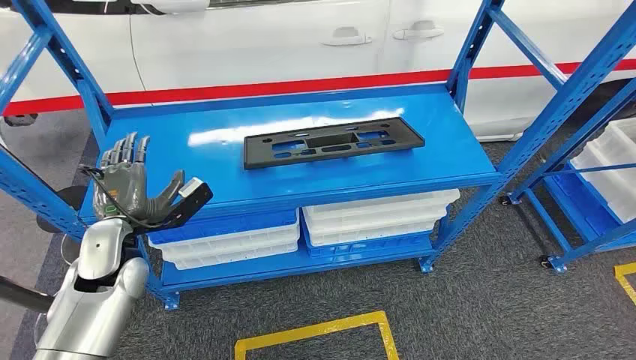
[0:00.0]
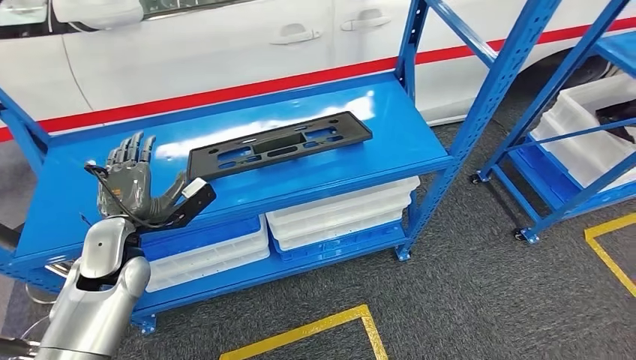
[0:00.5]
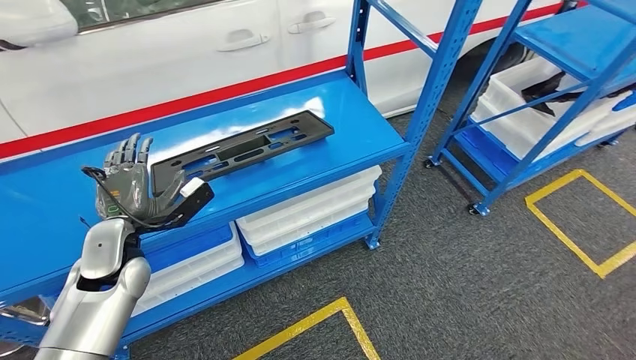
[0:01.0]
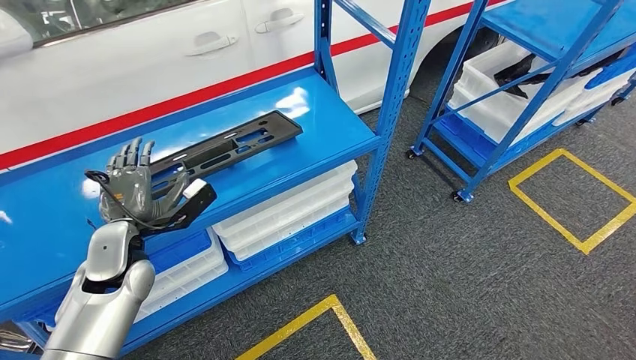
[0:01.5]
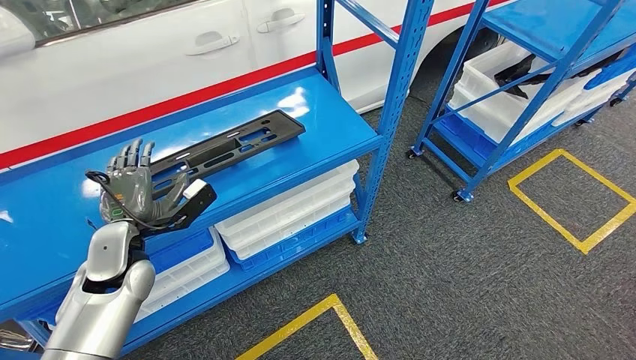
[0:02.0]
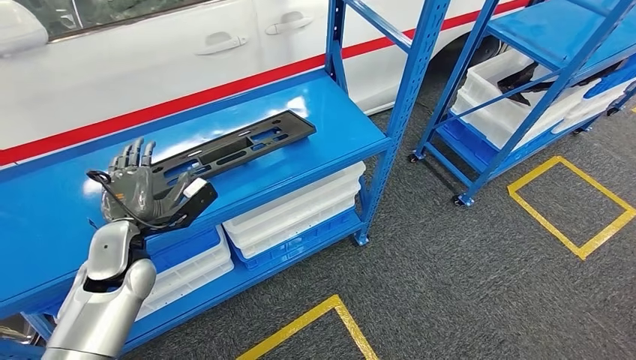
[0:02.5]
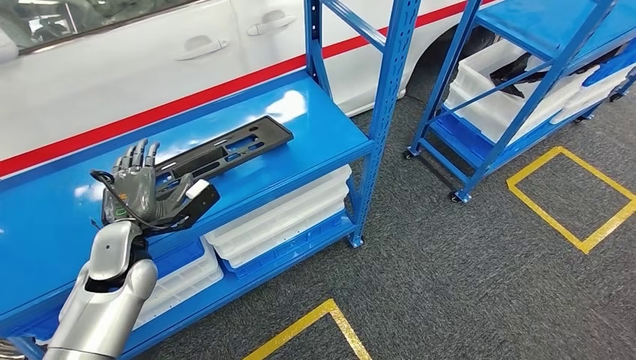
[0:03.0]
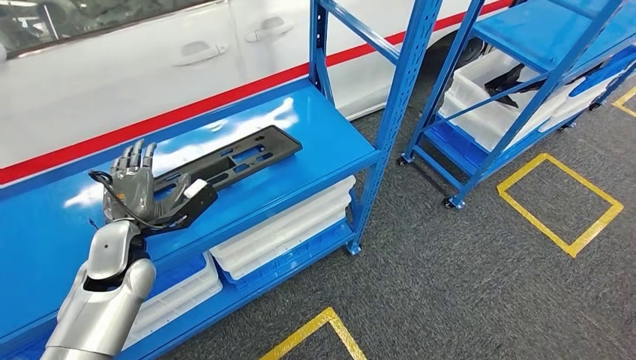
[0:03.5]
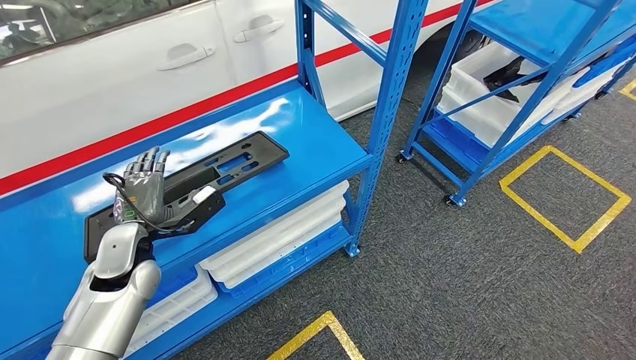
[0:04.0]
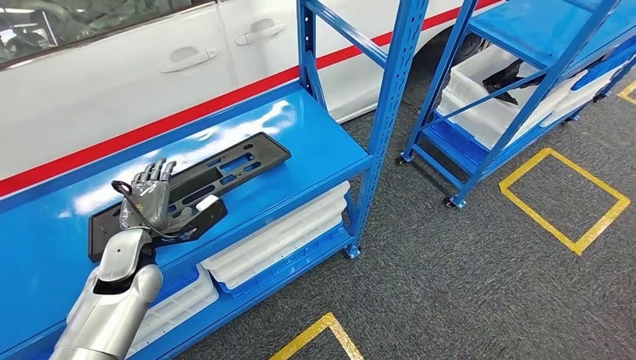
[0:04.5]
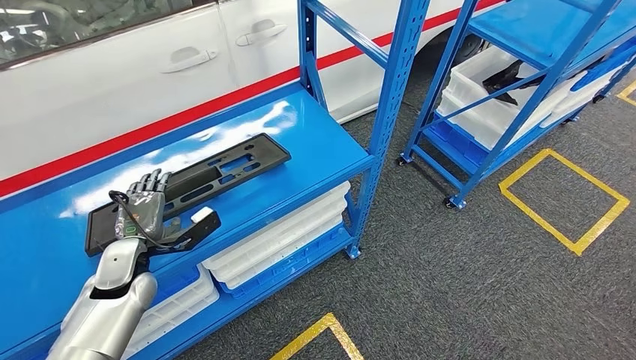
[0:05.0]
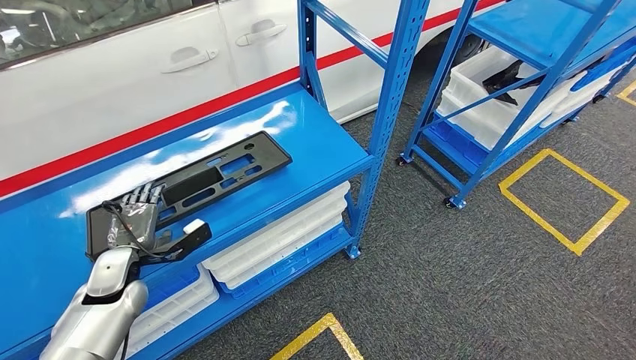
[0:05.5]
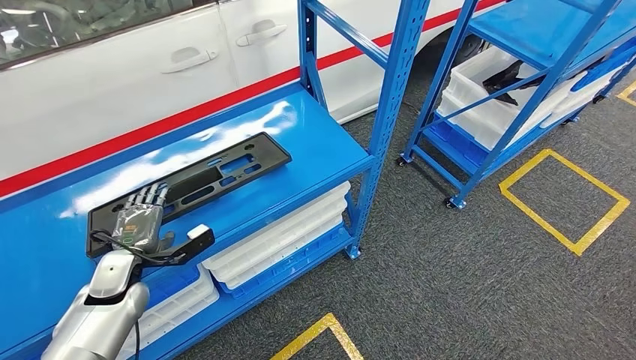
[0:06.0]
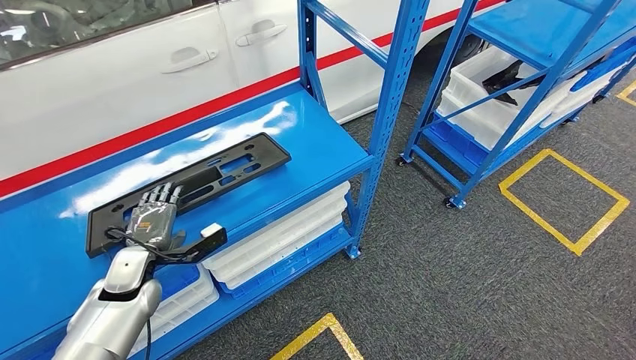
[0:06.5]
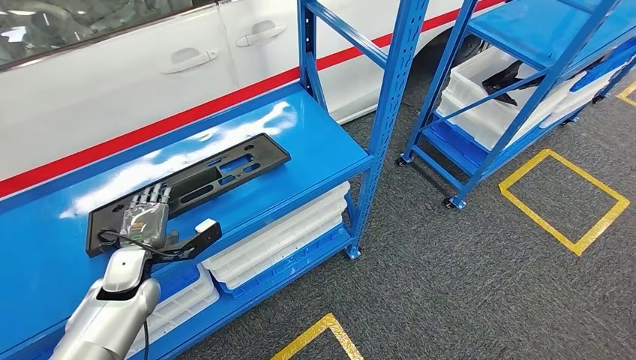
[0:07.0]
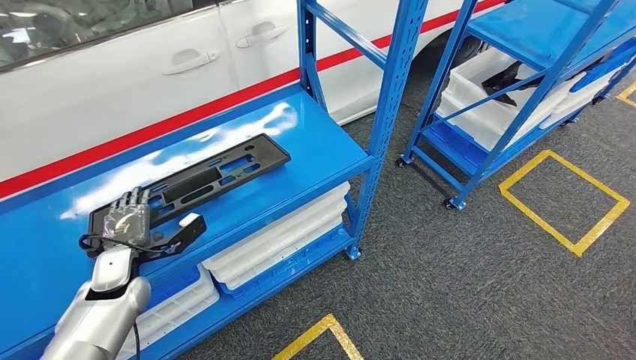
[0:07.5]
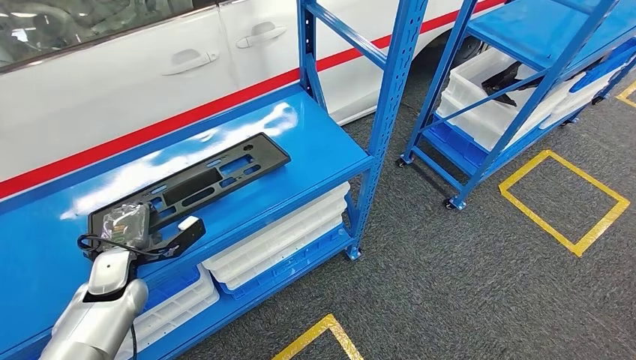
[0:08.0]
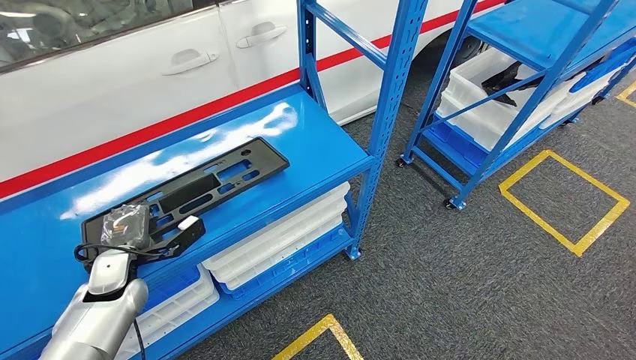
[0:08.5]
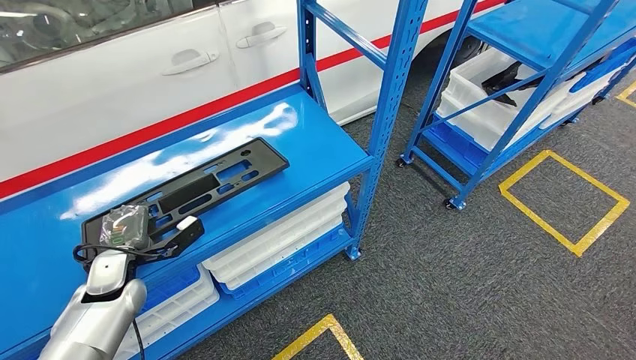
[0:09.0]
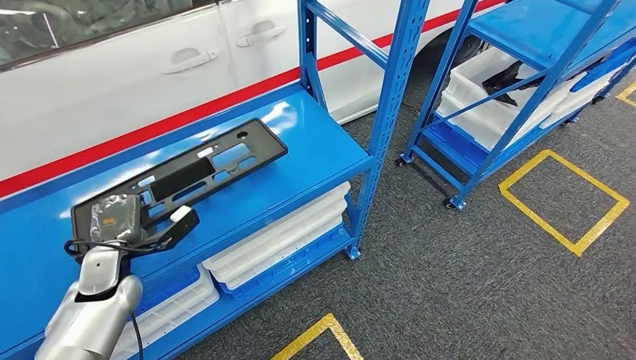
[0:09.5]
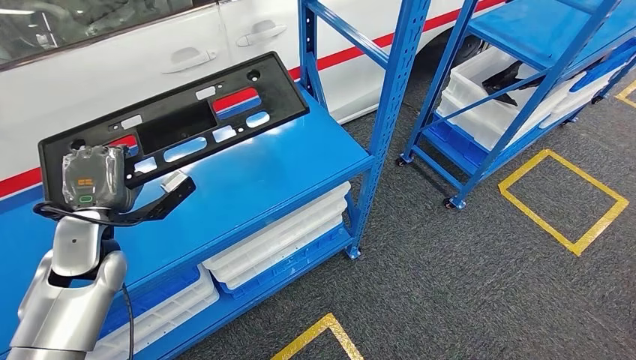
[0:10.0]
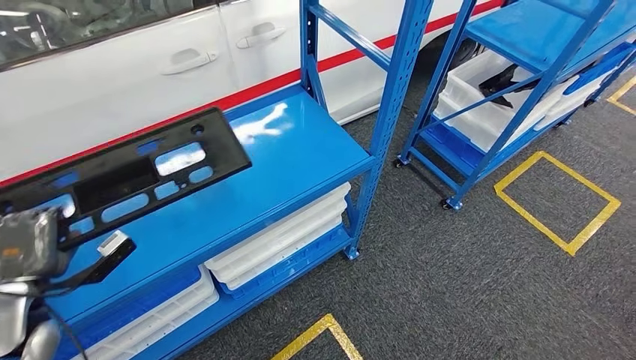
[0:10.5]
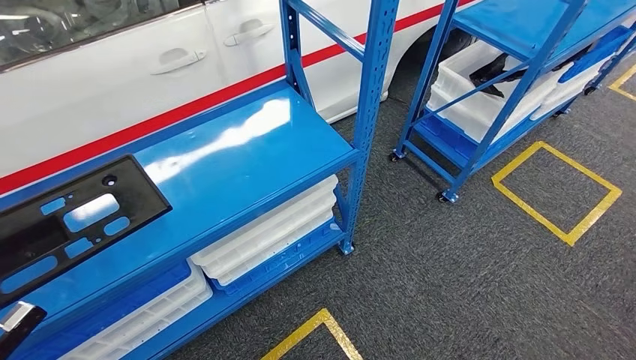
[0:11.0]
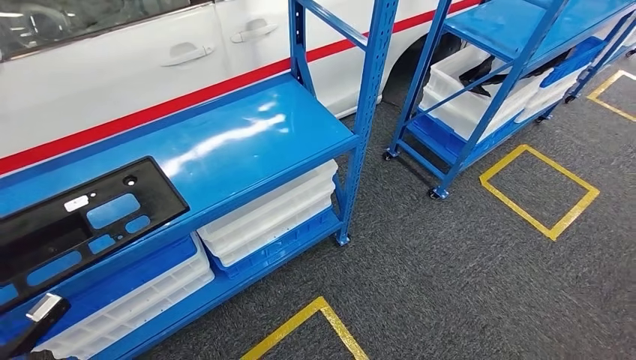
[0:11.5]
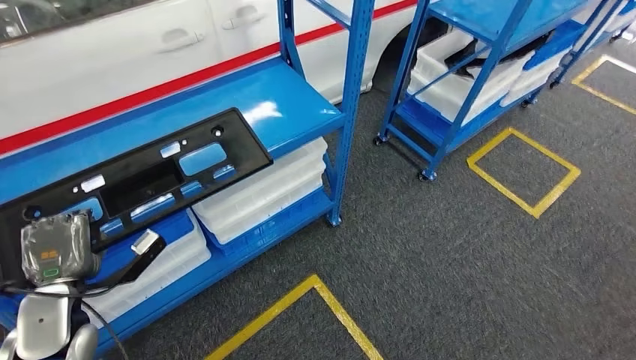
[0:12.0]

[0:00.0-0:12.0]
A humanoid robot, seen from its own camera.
0:04.0 to 0:06.0: The left hand travels downward and to the left by some 10 cm.
0:06.0 to 0:08.0: There are only small adjustments of the hands.

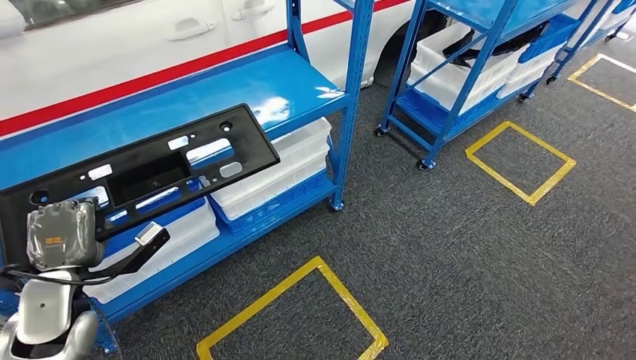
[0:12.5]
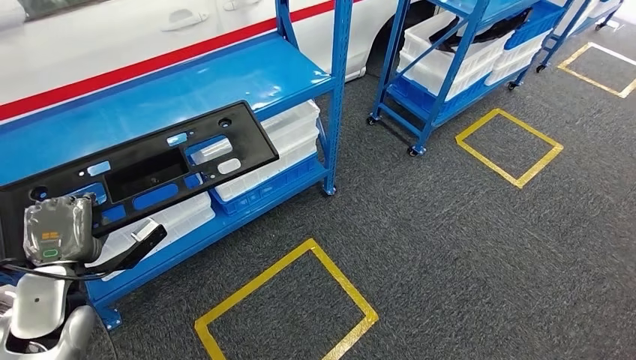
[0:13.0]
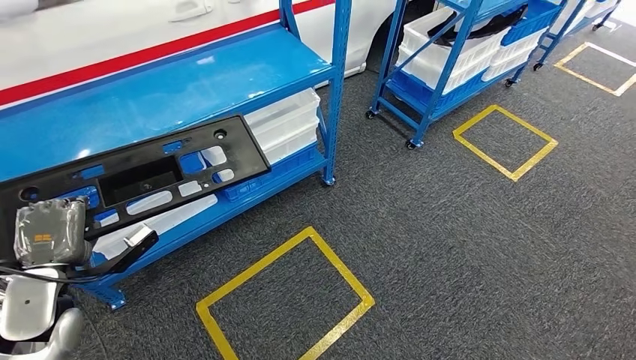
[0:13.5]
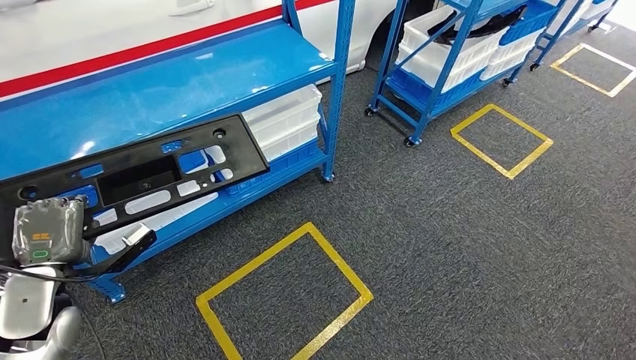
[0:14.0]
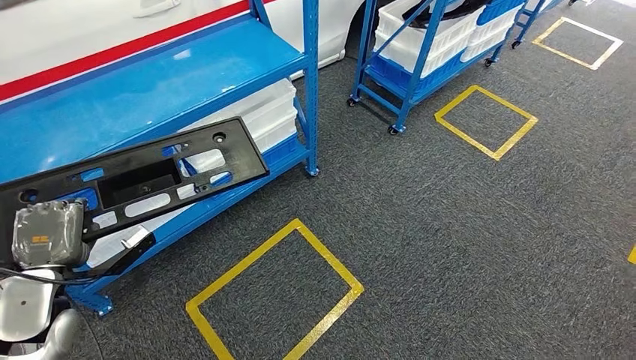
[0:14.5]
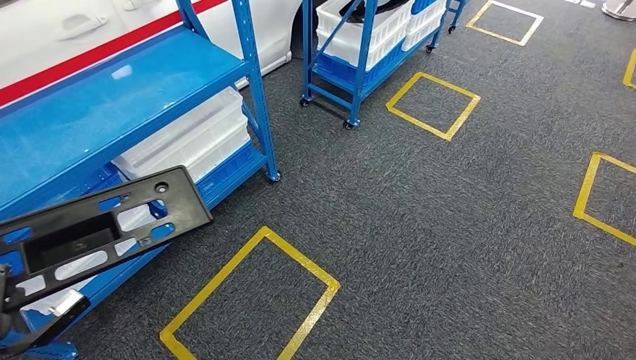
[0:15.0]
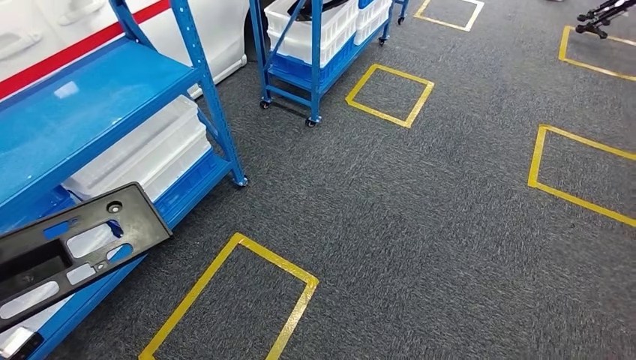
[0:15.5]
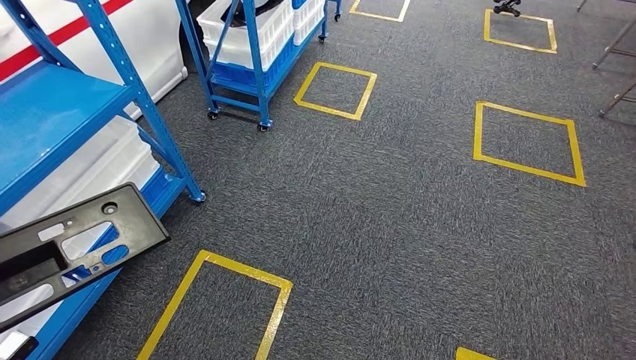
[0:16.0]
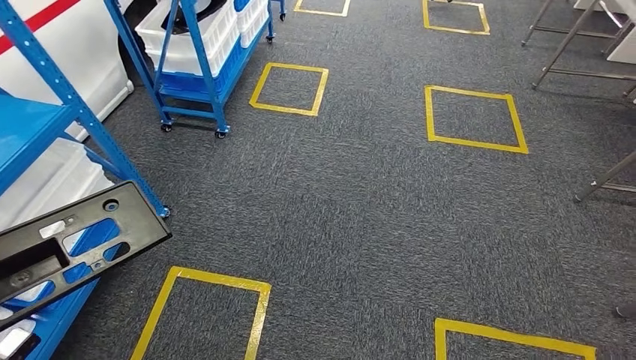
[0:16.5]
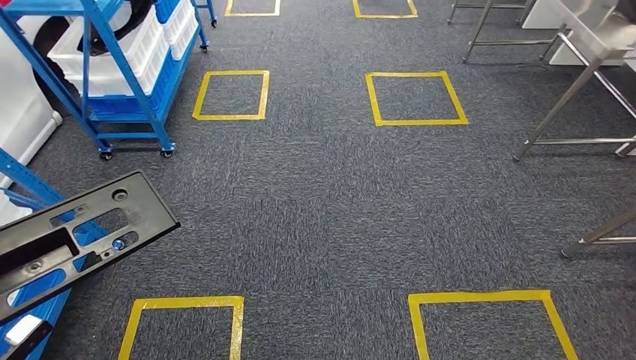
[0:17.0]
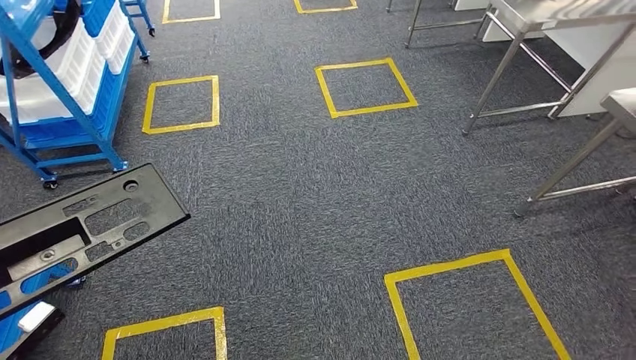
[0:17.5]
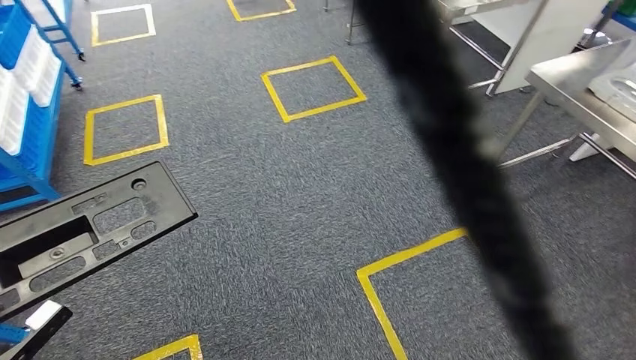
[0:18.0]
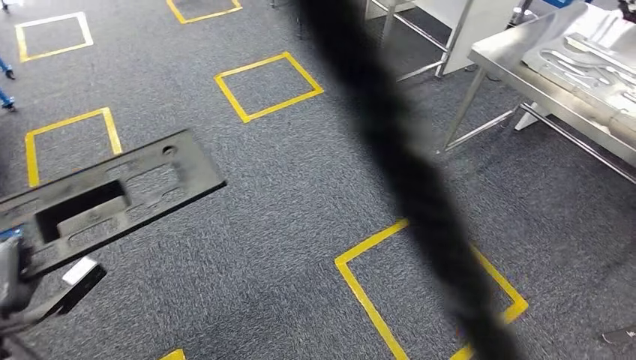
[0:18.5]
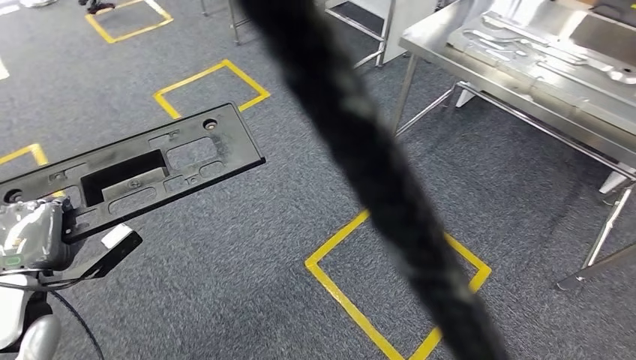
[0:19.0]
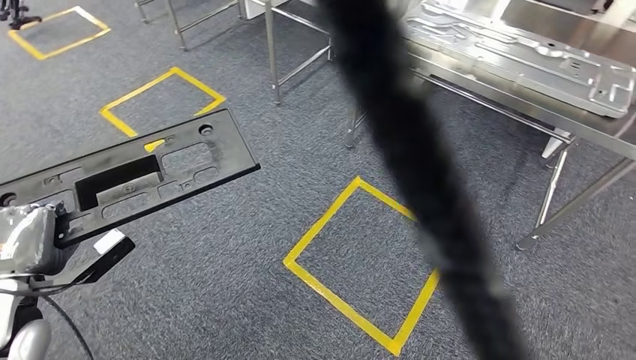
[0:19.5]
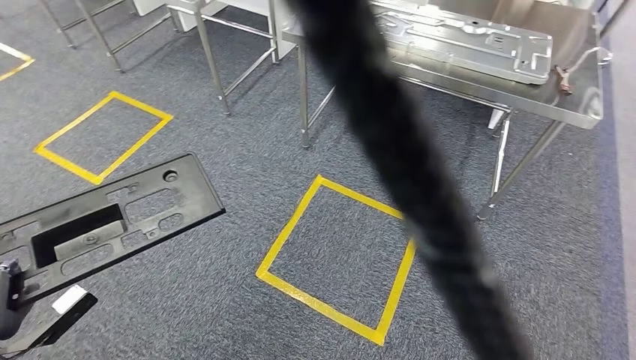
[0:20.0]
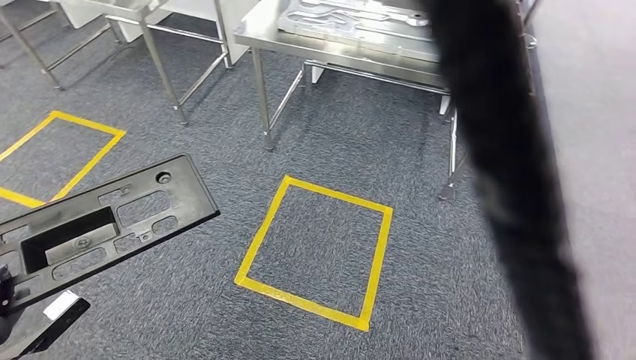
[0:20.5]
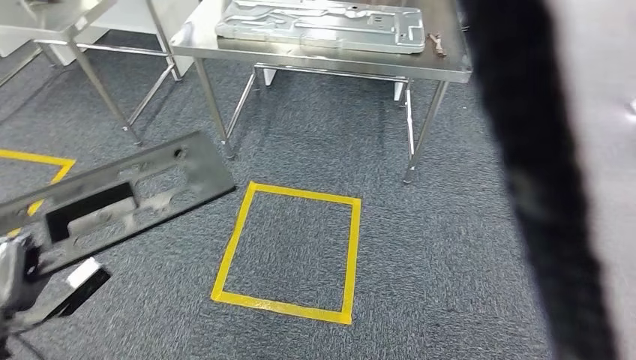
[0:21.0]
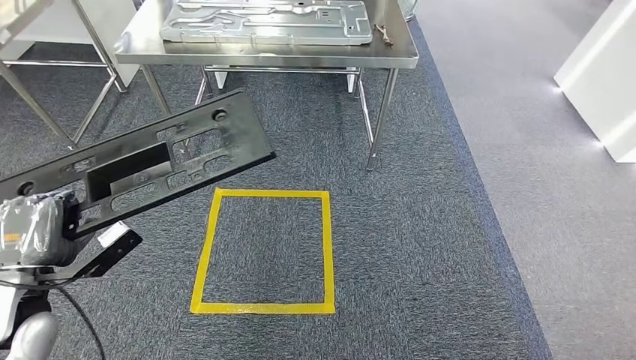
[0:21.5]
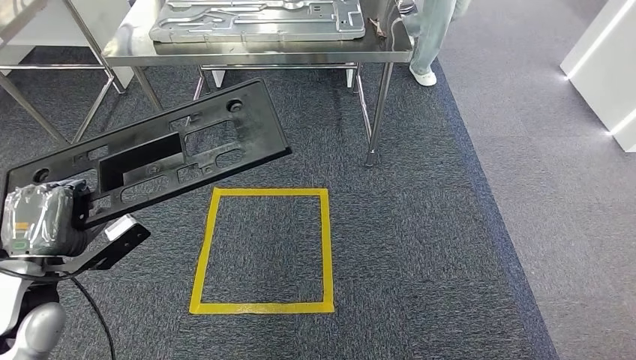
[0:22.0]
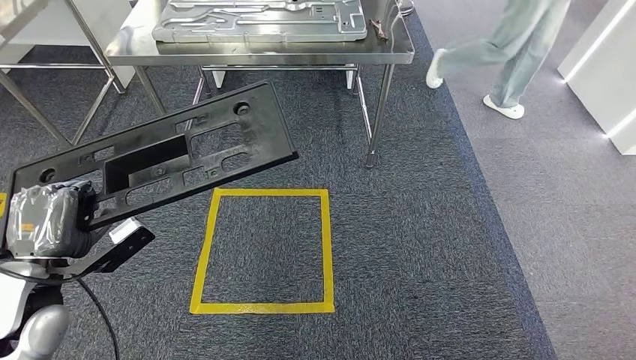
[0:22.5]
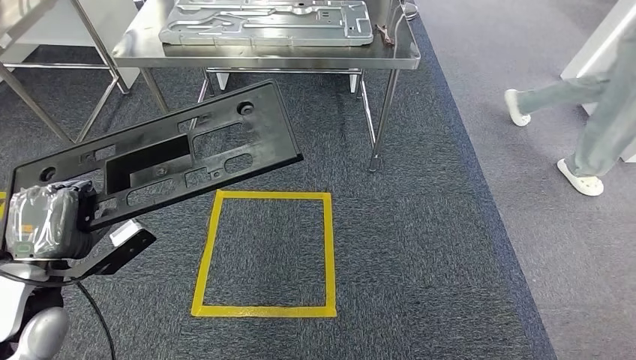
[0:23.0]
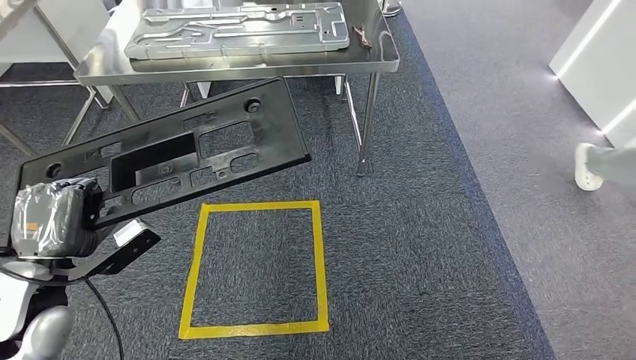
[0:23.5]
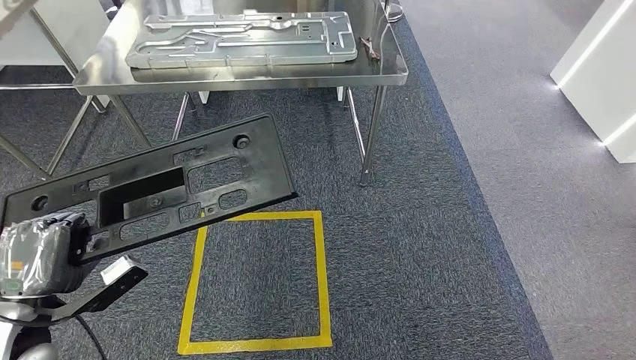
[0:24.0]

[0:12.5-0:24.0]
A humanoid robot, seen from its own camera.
Step, 0:12.5 to 0:15.0: Pick up the large material from the shelf.
